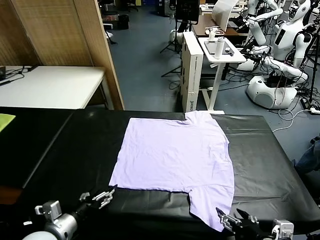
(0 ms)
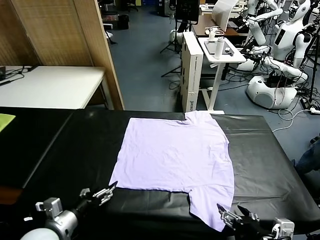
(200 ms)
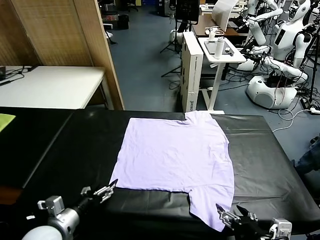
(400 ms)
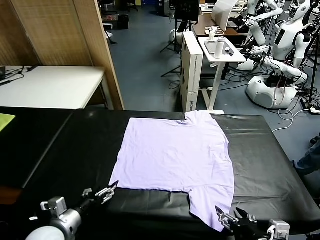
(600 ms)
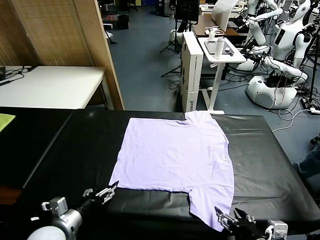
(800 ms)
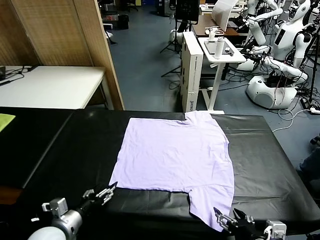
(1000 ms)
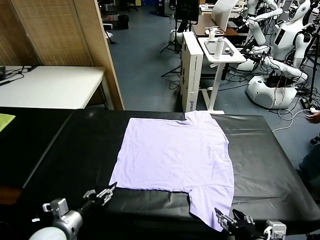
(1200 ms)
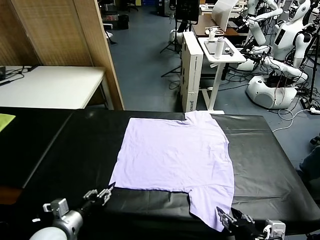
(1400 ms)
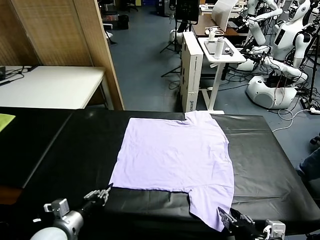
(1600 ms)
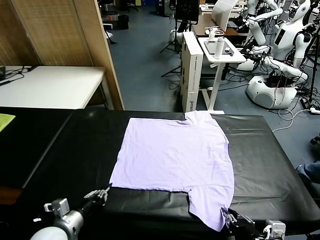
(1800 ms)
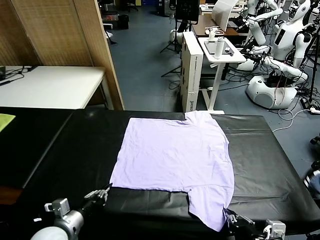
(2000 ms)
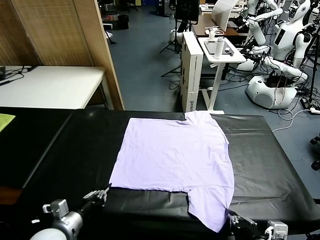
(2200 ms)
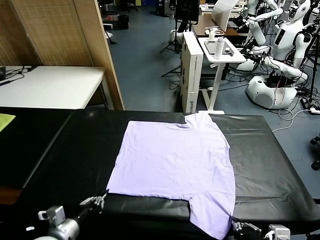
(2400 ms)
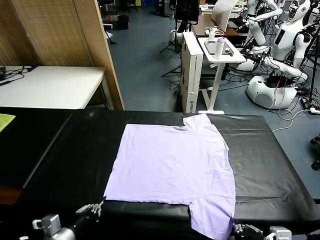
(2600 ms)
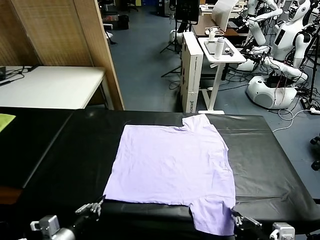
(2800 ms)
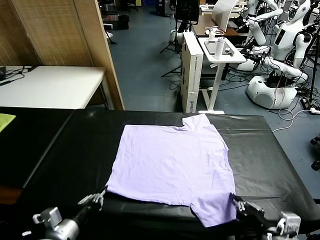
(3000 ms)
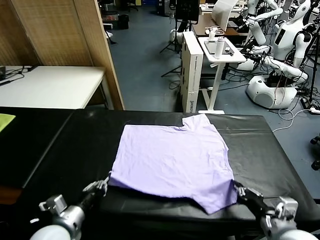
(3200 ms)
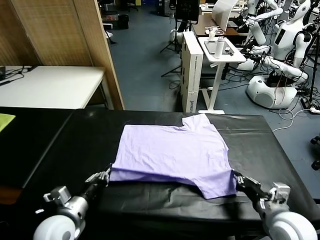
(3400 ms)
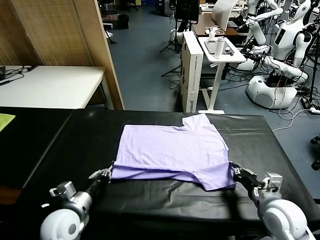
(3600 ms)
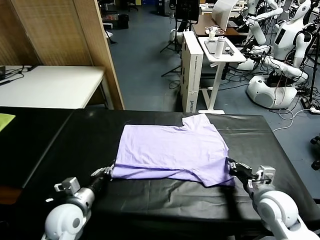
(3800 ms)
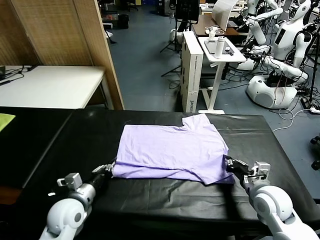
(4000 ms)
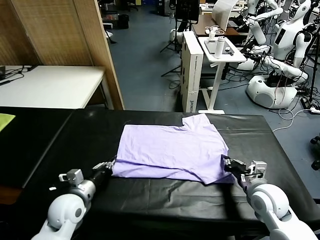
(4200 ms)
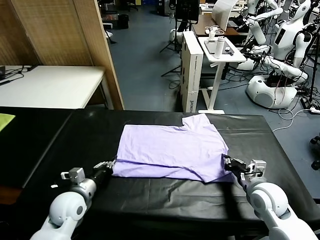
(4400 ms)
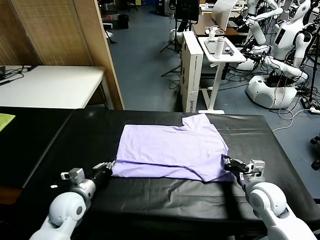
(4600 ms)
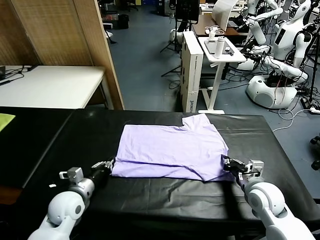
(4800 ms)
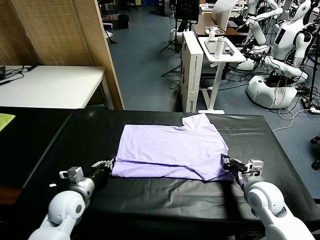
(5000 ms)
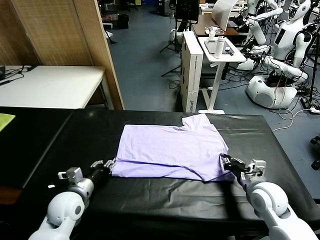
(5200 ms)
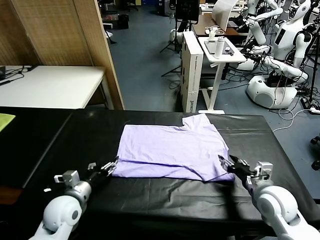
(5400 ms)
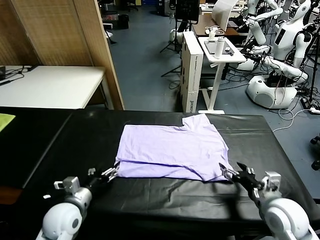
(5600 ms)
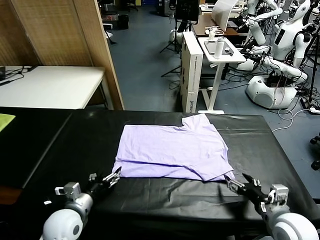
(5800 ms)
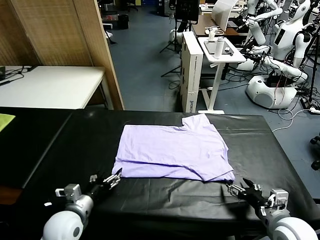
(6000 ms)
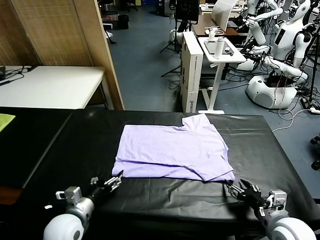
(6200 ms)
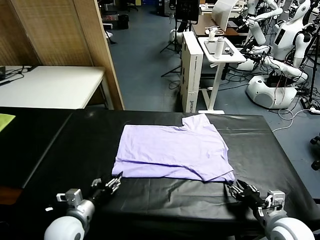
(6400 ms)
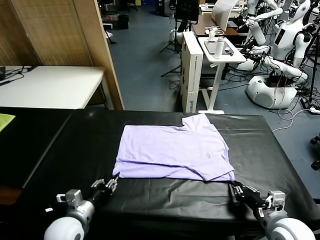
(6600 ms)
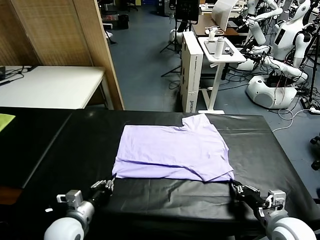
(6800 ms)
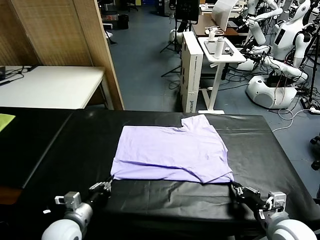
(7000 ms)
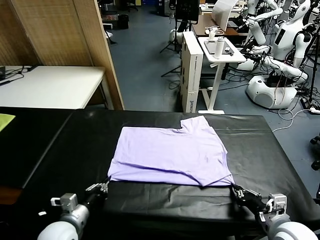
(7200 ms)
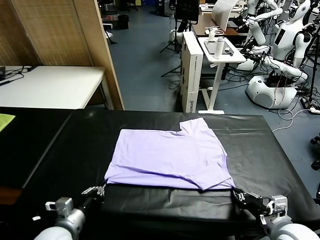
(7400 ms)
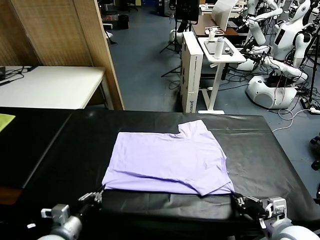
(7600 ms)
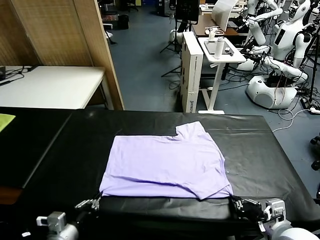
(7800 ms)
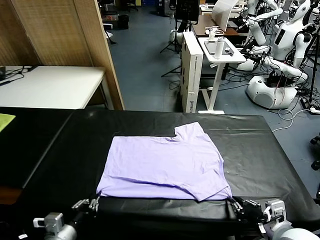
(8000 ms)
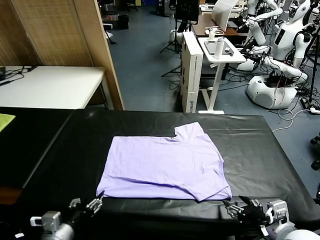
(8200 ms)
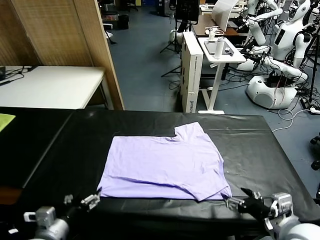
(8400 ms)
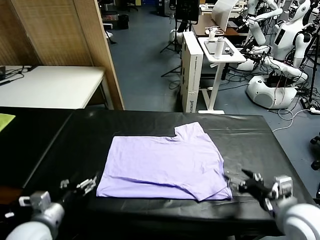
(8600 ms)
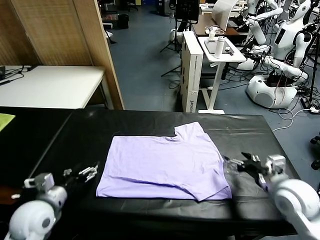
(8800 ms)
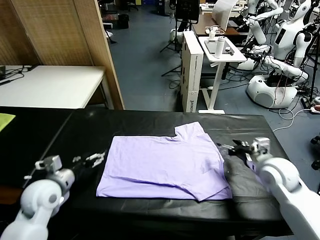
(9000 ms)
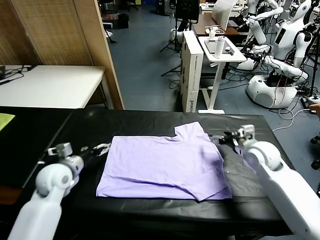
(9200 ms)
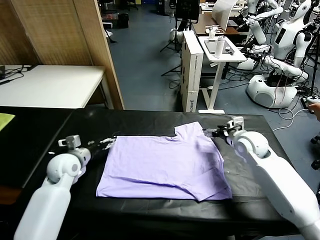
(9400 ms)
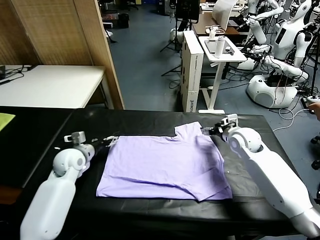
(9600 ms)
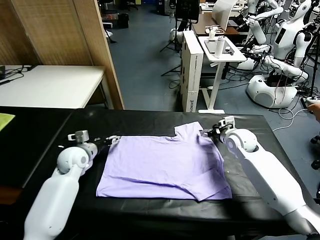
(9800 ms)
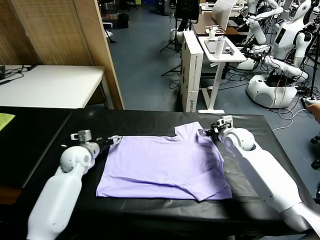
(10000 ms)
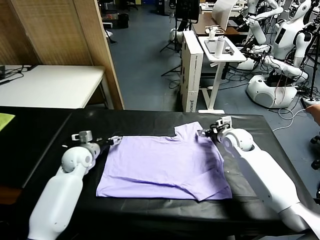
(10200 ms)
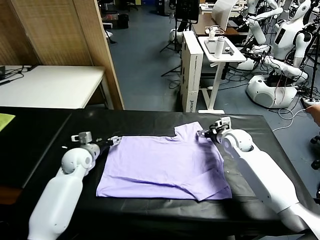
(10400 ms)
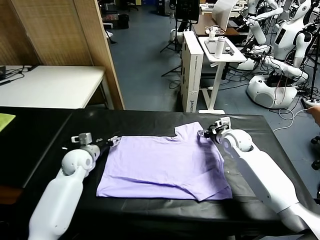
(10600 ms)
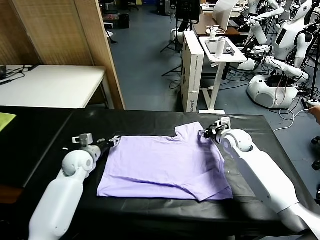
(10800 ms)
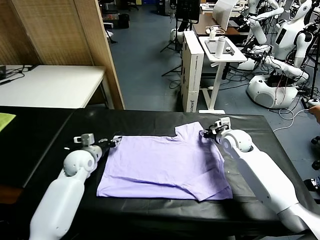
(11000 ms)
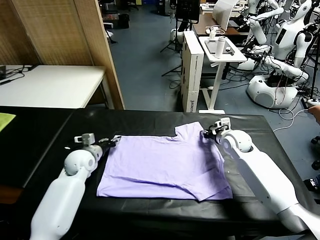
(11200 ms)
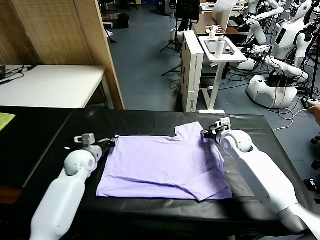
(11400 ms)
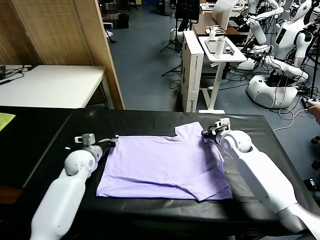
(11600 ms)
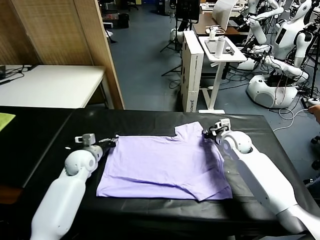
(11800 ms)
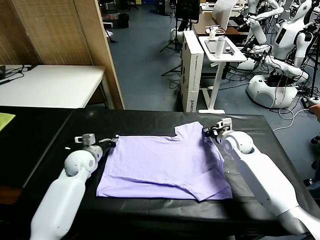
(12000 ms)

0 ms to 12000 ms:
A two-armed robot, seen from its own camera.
Task of the whole recording: fold and organize the clothes.
Step, 0 ms to 2200 ms: use both grippers simultaneously to clamp the lower edge of the clothing fabric.
Step, 2400 ms to 5400 ms: use both grippers to drag the lower edge of the fabric forward and fold it over the upper edge.
Step, 5600 ms to 8200 ms: Drag the clothes downward with both gripper.
Step, 8400 ms to 12000 ms: use both grippers simultaneously to clamp the upper edge of the clothing fabric.
1600 ms to 3000 ms: The right gripper is displaced forward by approximately 5 cm.
3000 ms to 4400 ms: Both grippers move forward, approximately 10 cm.
4400 ms to 6000 ms: The right gripper is displaced backward by roughly 10 cm, and opens its fingers; the left gripper moves backward, approximately 5 cm, and opens.
6000 ms to 7600 ms: The left gripper goes approximately 5 cm backward, and closes; the right gripper shifts by about 5 cm, and closes.
7600 ms to 9000 ms: The left gripper moves forward, roughly 15 cm, and opens. The right gripper travels forward by about 25 cm, and opens.
9000 ms to 10400 ms: The right gripper is displaced forward by about 10 cm, and closes; the left gripper moves forward and downward, some 15 cm.
10400 ms to 12000 ms: The left gripper closes its fingers. Meanwhile the right gripper closes up.

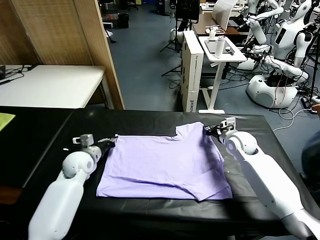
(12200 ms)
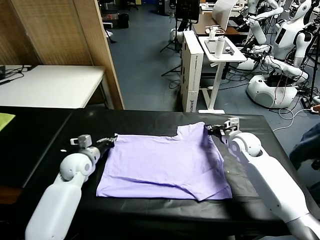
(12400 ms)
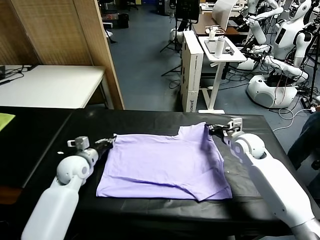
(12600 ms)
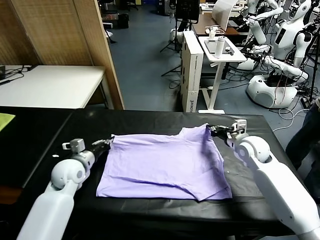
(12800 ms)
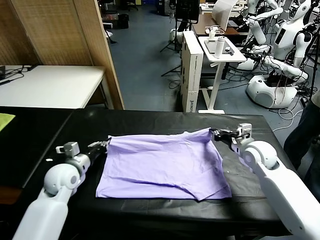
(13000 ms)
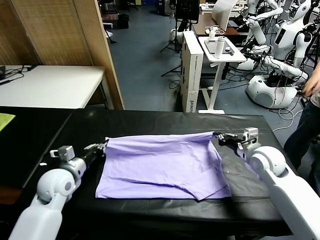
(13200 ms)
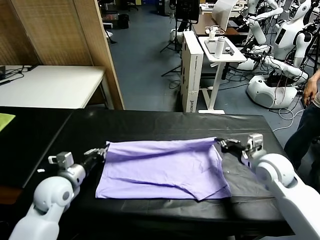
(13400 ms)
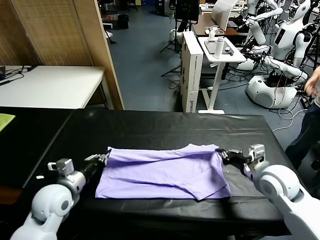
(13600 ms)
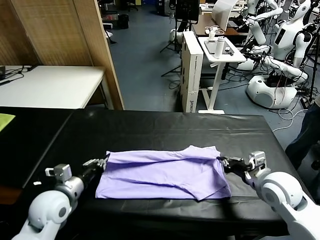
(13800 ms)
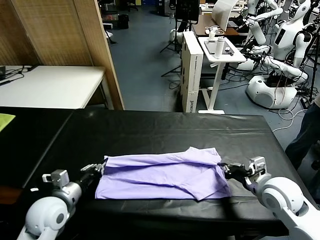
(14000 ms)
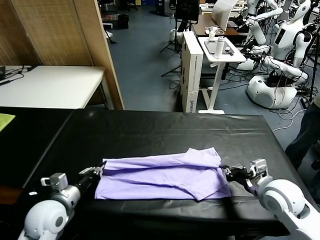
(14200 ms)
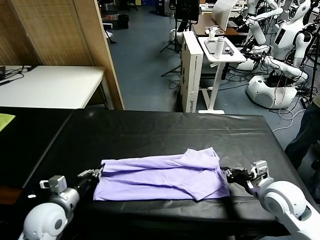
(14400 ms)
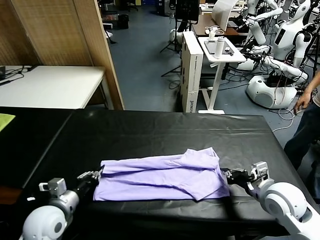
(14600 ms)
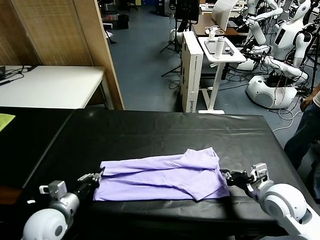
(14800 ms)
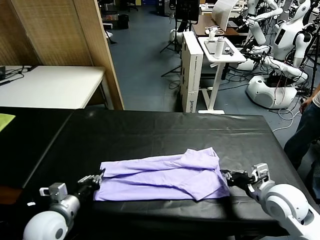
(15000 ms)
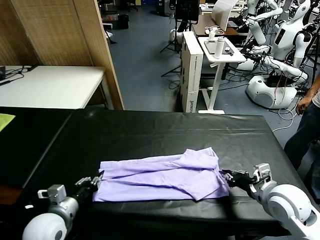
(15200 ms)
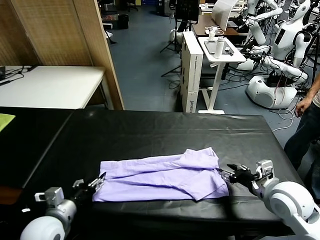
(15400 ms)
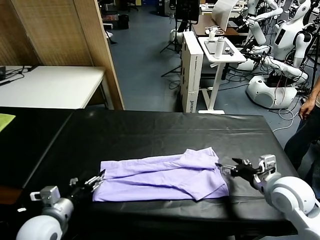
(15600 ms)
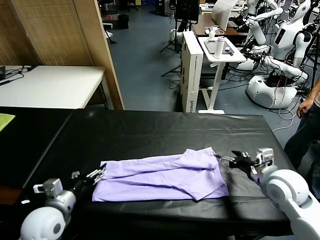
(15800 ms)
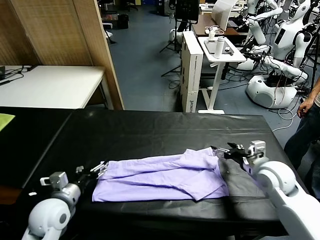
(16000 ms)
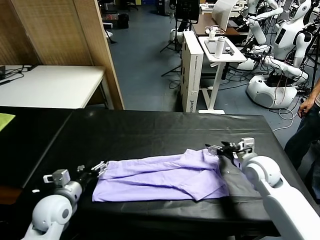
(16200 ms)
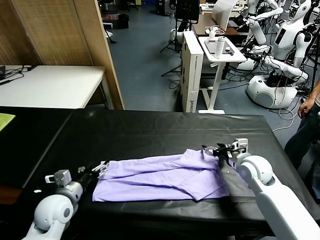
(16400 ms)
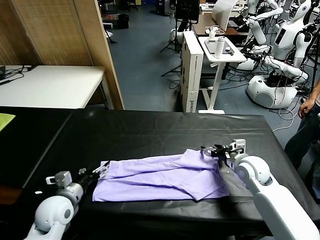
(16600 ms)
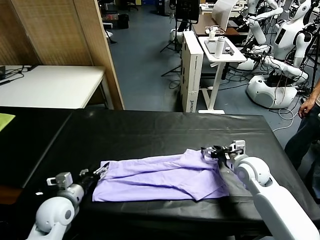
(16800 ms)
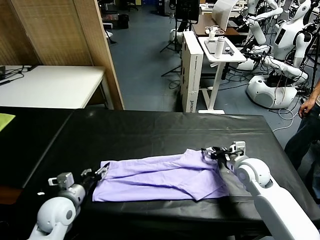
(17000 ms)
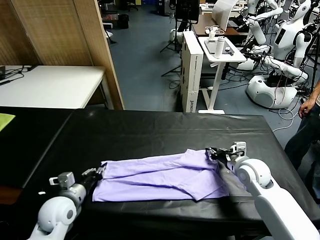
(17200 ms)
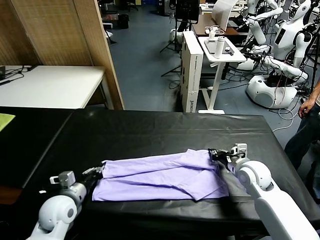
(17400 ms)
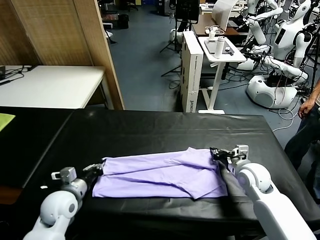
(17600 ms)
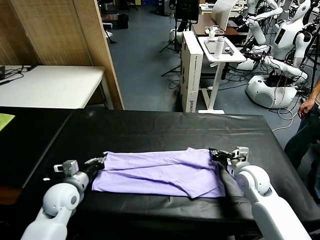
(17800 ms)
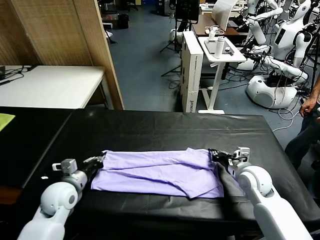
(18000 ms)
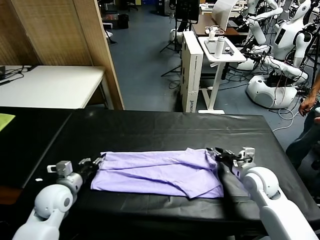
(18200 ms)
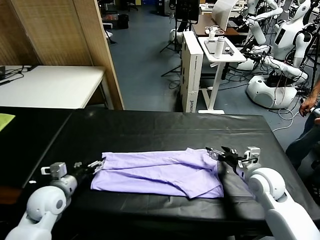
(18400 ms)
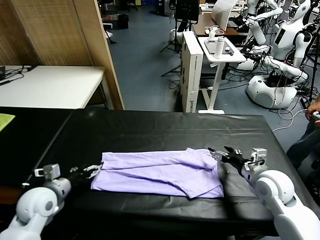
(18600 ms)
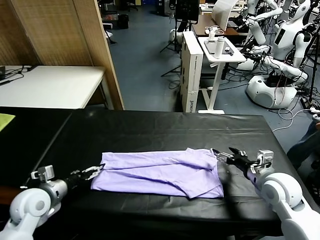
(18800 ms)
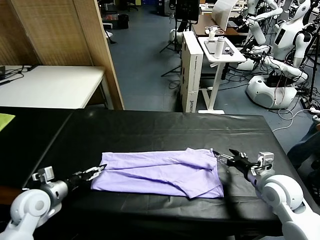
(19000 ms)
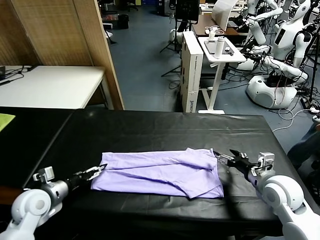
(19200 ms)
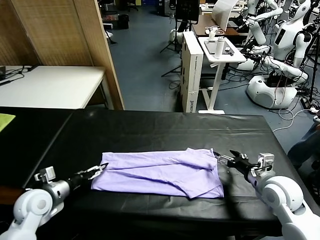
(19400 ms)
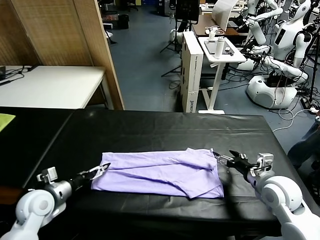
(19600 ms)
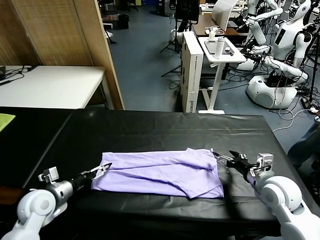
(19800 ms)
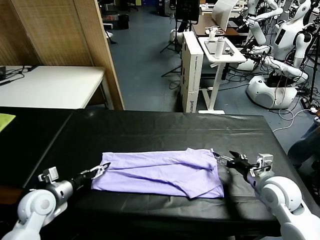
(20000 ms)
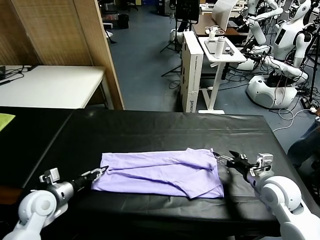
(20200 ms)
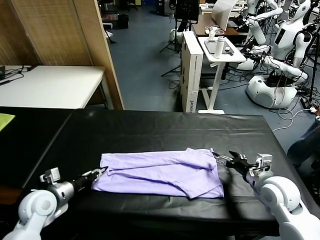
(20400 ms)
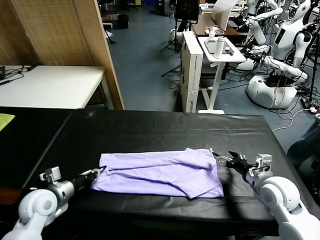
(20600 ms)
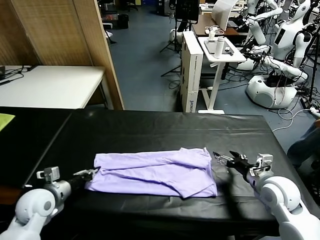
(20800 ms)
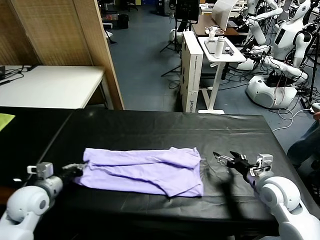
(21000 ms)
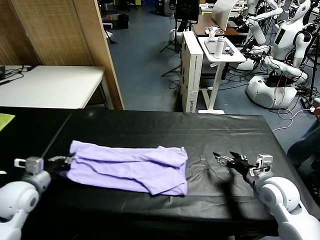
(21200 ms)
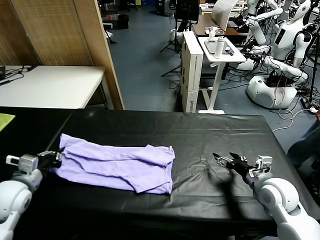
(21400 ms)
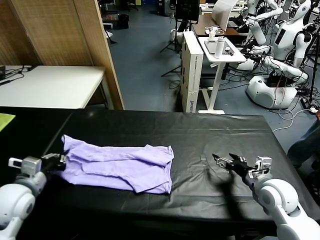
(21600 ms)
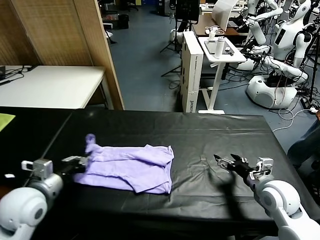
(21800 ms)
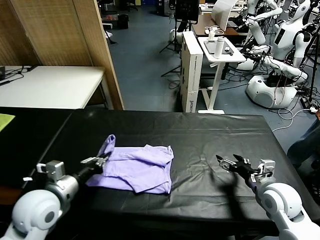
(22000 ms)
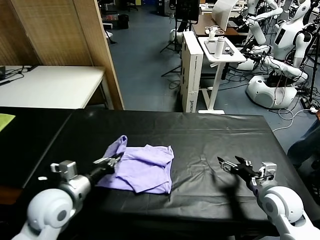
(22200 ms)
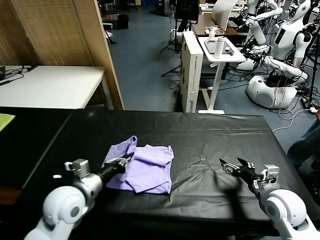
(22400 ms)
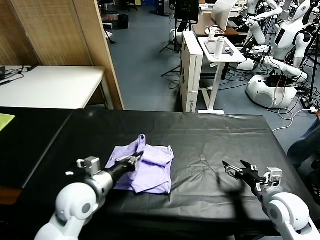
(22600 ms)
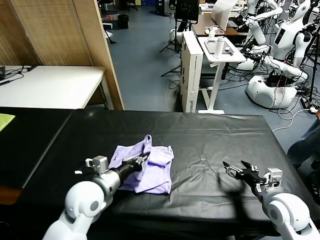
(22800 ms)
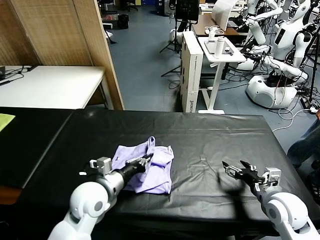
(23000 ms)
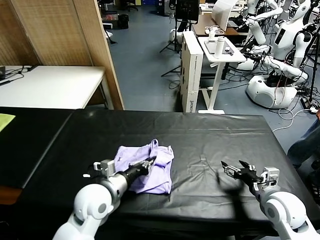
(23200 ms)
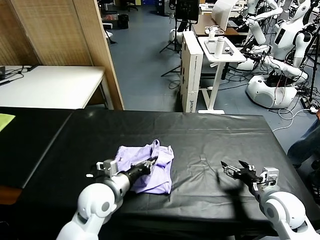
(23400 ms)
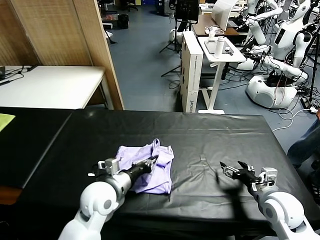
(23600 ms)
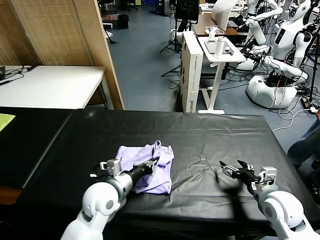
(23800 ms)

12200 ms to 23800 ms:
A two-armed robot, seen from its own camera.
Task of the whole recording: fold and organize the clothes.
Step, 12200 ms to 15400 ms: use both grippers to drag the upper edge of the fabric backward and fold it over the lower edge.
Step, 15600 ms to 20600 ms: use the left gripper to clamp the left edge of the fabric.
12200 ms to 13600 ms: Both grippers travel together backward, approximately 15 cm.
13600 ms to 15000 ms: The left gripper is displaced backward by about 5 cm.
15000 ms to 16600 ms: The left gripper heads forward, covering approximately 5 cm, and opens up. The right gripper goes about 10 cm forward, and opens up.
16600 ms to 18000 ms: The right gripper closes its fingers, while the left gripper closes up.
18000 ms to 19400 ms: The right gripper goes about 5 cm backward, and opens its fingers. The left gripper goes roughly 5 cm to the left, and opens its fingers.
19400 ms to 21000 ms: The left gripper closes up.
21000 ms to 22400 ms: The left gripper moves to the right, some 15 cm.
22400 ms to 23800 ms: The left gripper moves to the right, about 5 cm.
